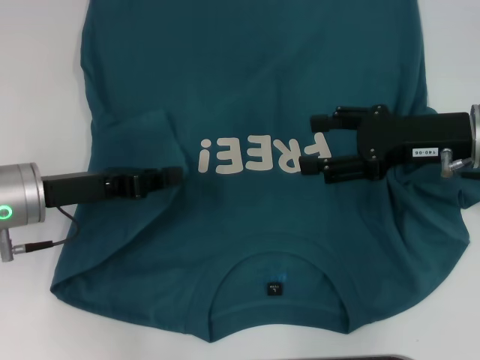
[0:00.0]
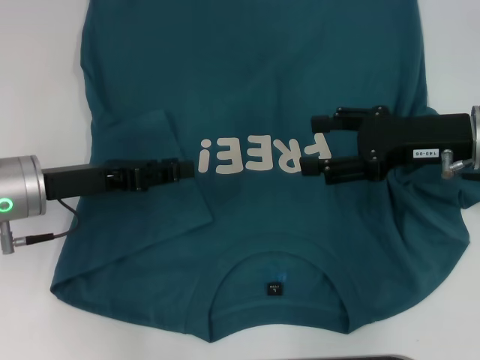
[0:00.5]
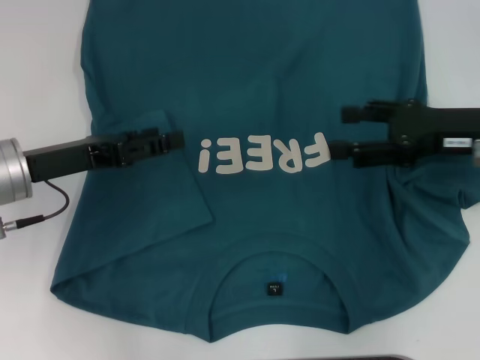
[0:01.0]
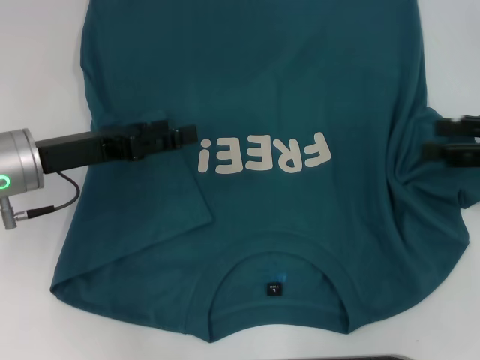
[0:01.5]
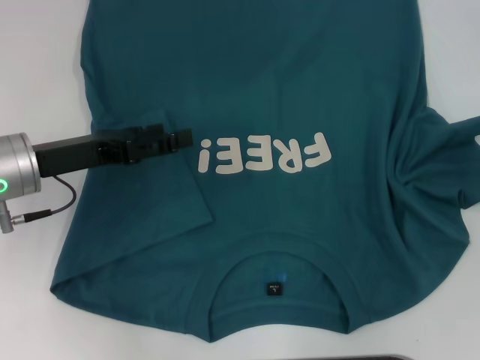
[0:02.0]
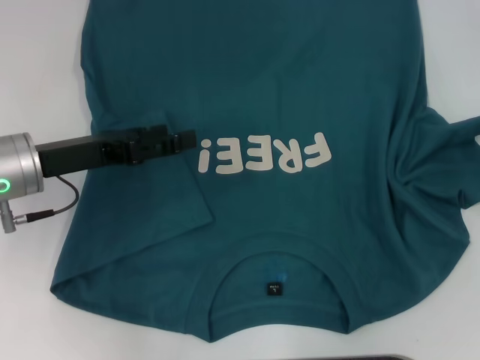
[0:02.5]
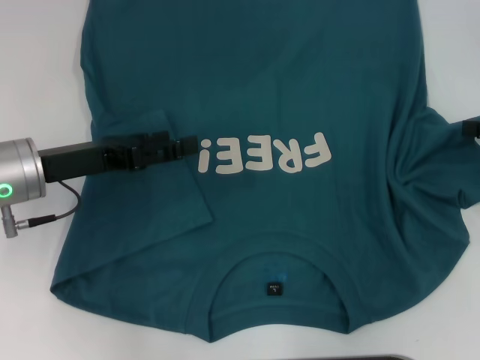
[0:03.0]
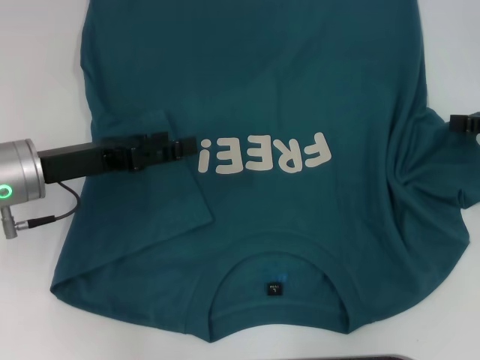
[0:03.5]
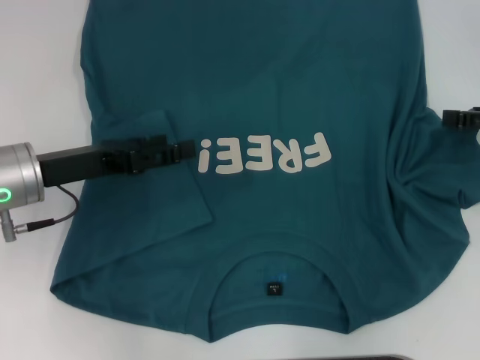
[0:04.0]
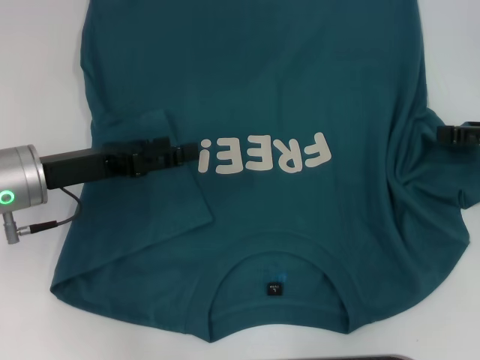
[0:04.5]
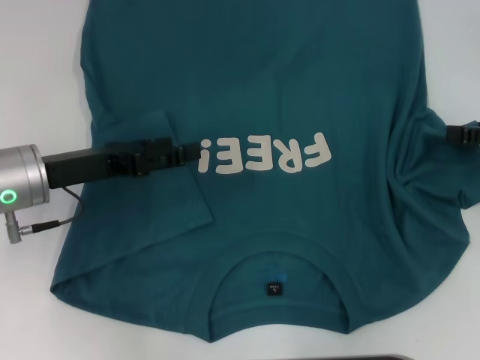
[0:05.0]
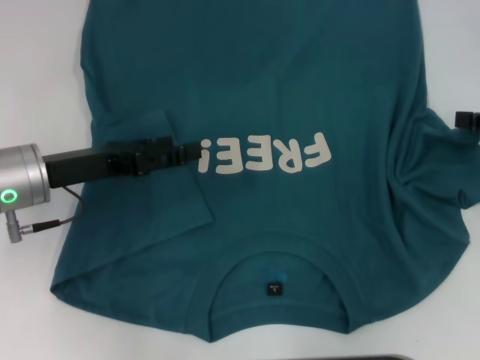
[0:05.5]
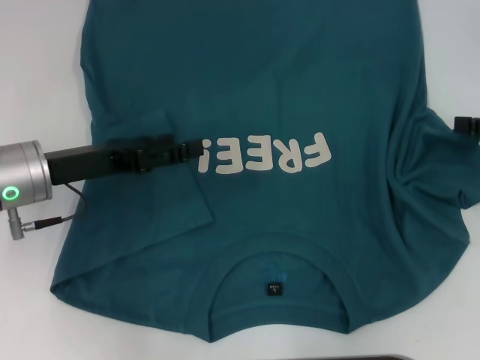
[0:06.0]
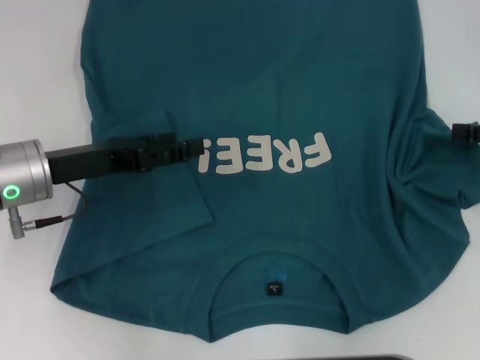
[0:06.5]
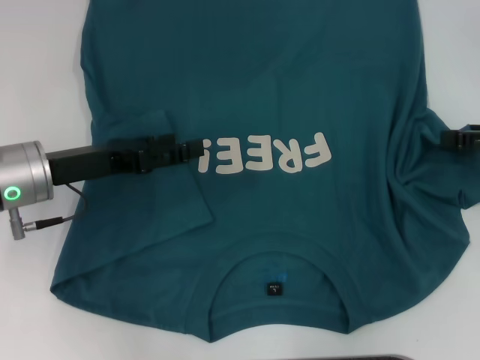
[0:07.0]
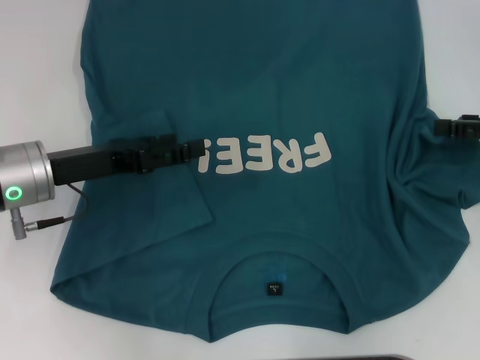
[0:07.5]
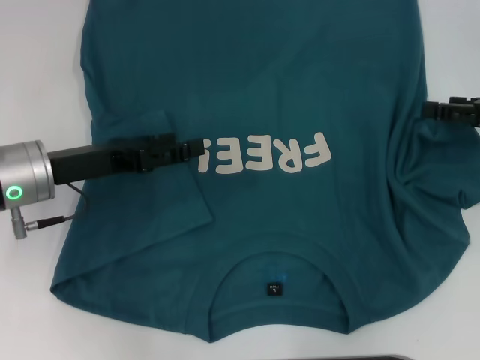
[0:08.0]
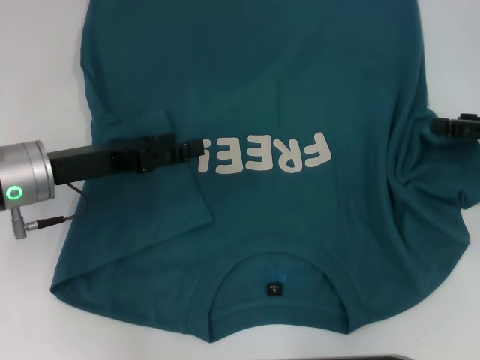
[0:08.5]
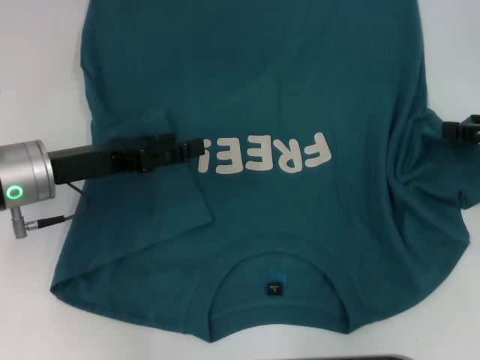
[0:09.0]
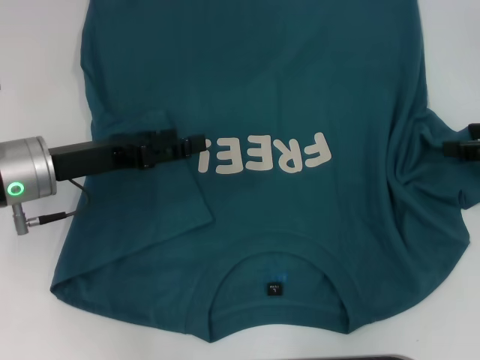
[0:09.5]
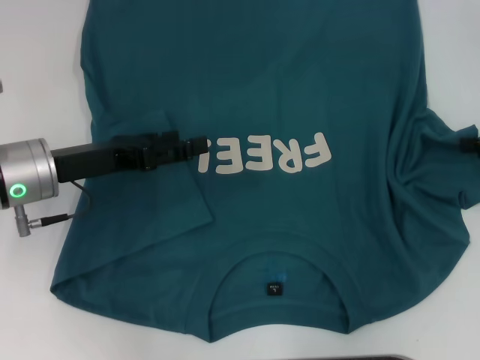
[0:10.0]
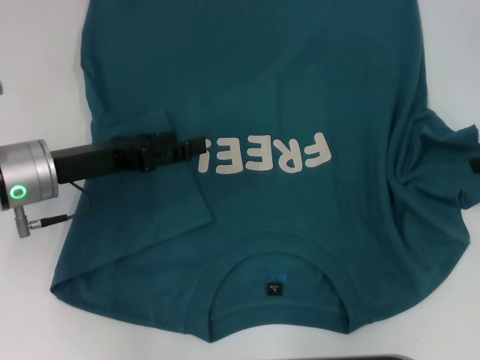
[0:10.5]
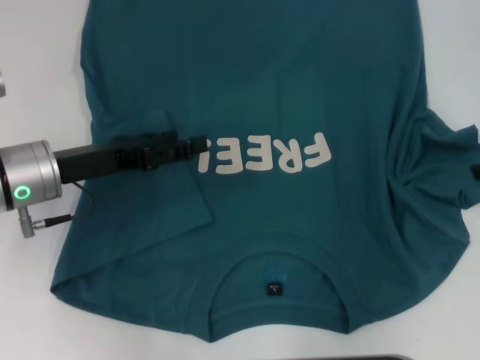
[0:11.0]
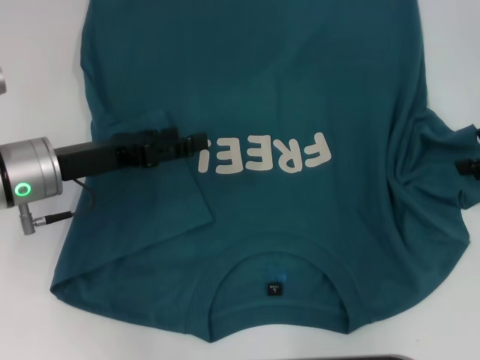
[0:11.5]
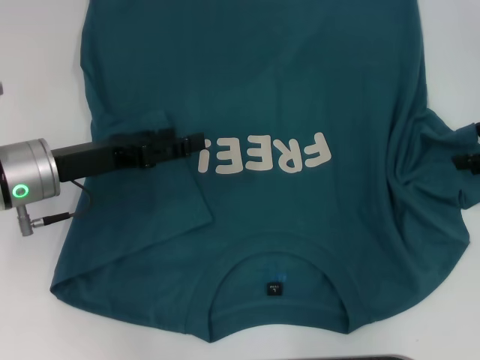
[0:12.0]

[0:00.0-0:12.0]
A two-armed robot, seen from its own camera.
0.0 to 2.0 s: The right gripper shifts about 15 cm to the right; the left gripper opens.
2.0 to 4.0 s: The right gripper ends up about 5 cm from where it was.
4.0 to 8.0 s: The grippers stay close to where they were, moving slightly.
10.0 to 12.0 s: The grippers stay close to where they were, moving slightly.

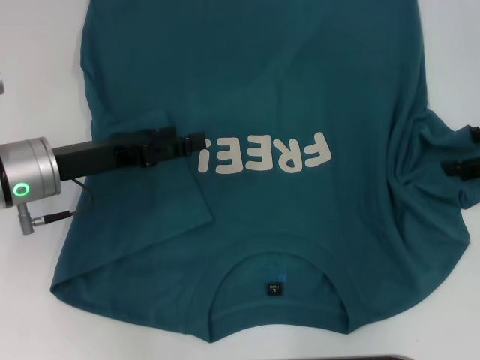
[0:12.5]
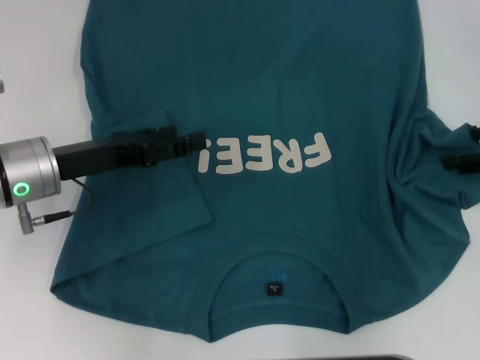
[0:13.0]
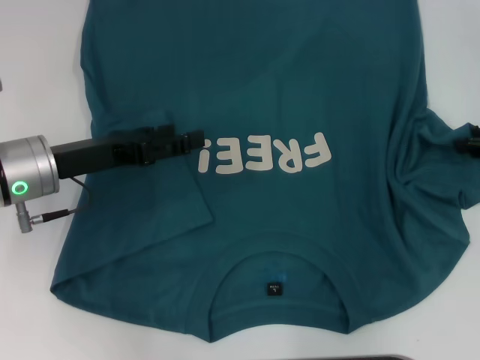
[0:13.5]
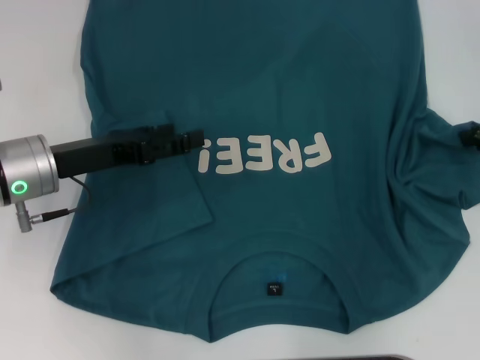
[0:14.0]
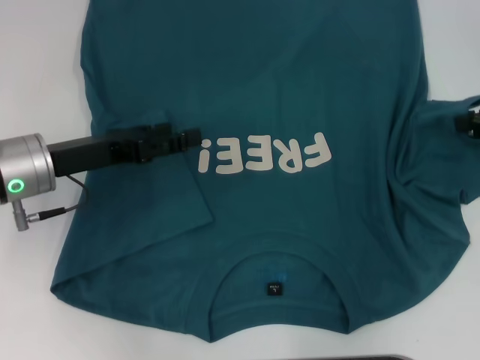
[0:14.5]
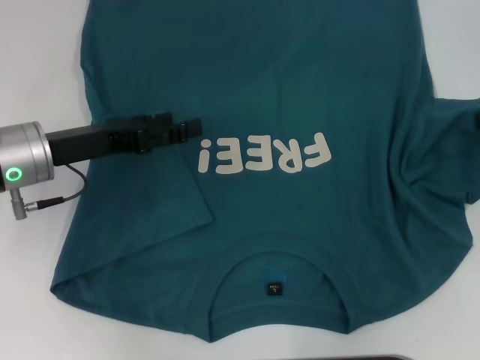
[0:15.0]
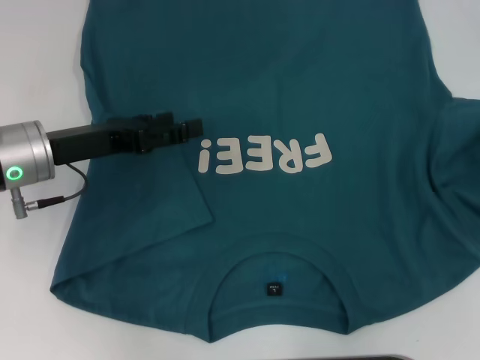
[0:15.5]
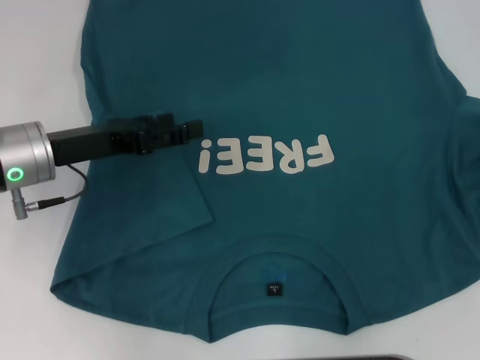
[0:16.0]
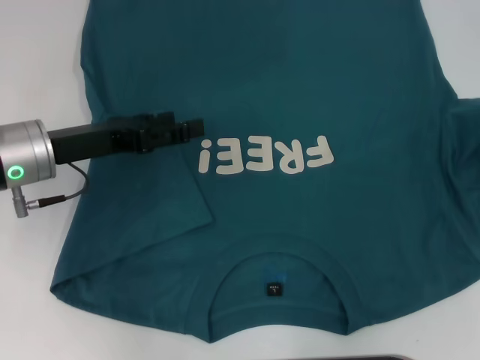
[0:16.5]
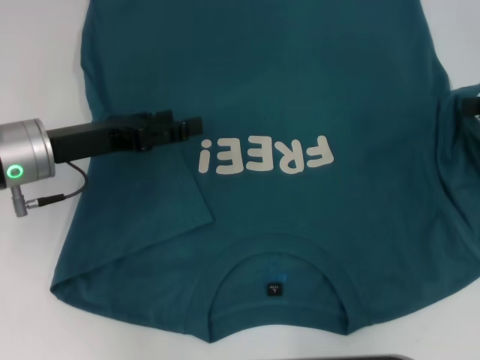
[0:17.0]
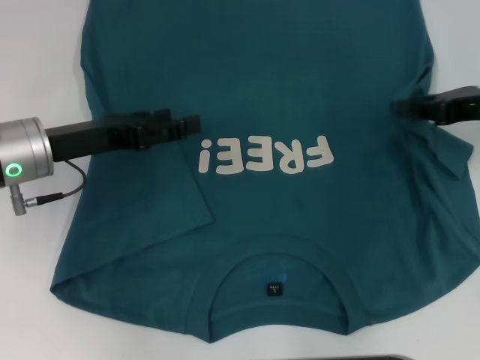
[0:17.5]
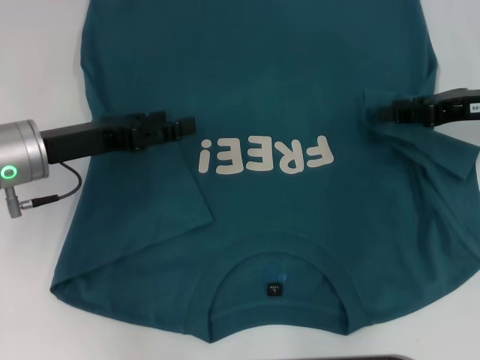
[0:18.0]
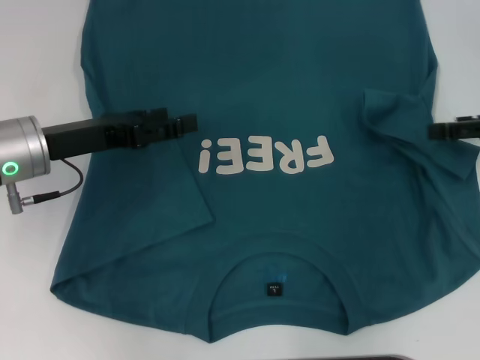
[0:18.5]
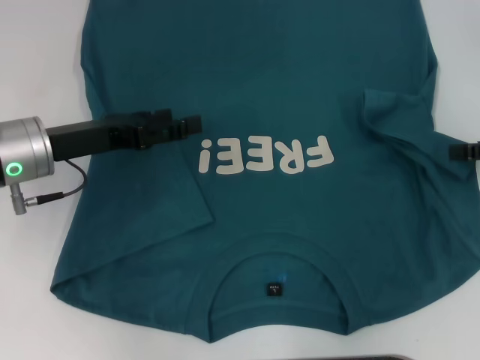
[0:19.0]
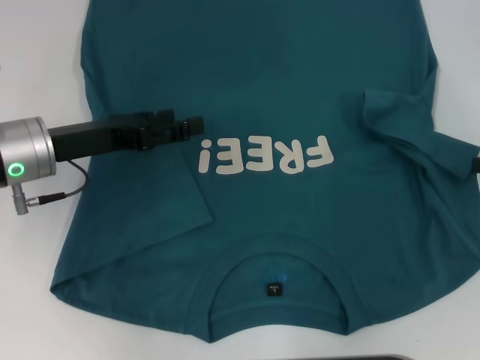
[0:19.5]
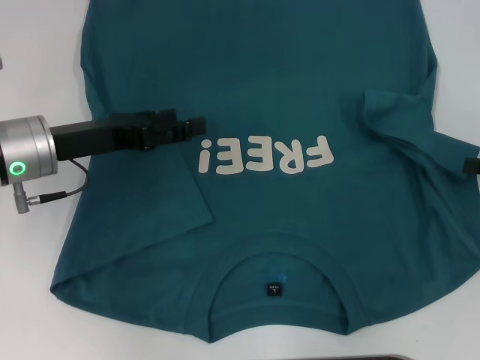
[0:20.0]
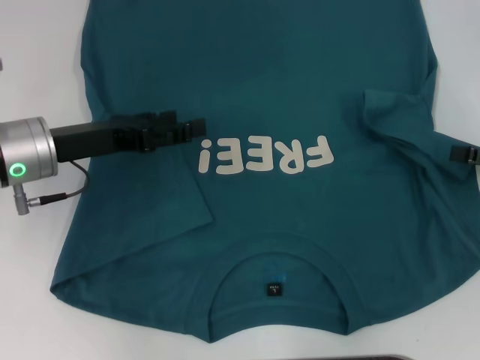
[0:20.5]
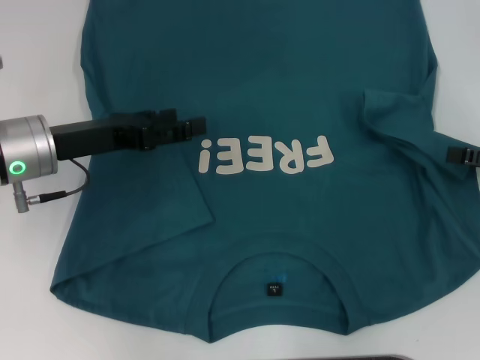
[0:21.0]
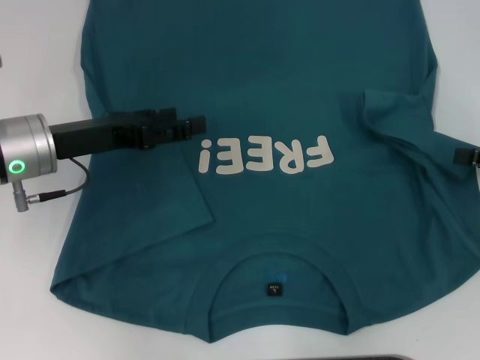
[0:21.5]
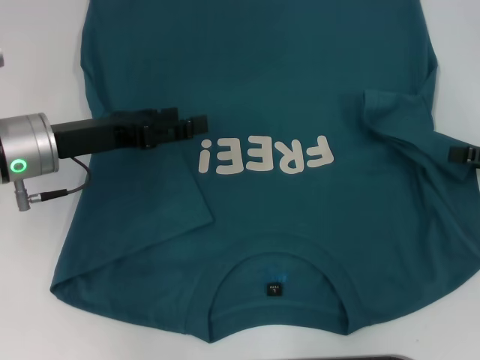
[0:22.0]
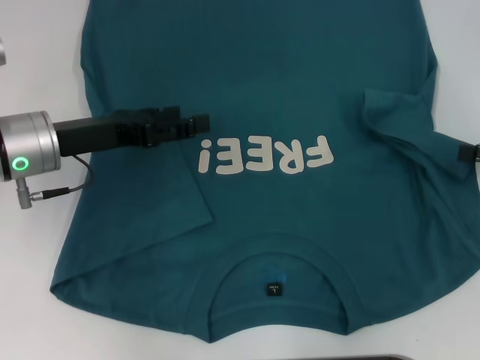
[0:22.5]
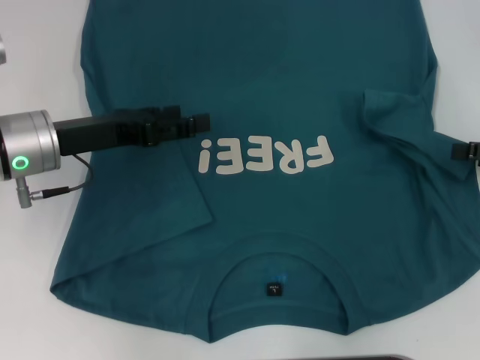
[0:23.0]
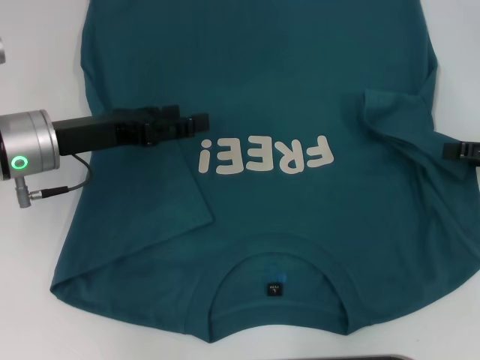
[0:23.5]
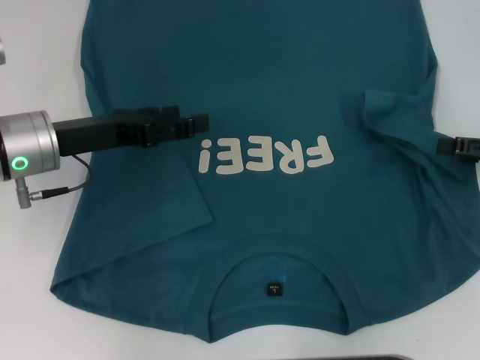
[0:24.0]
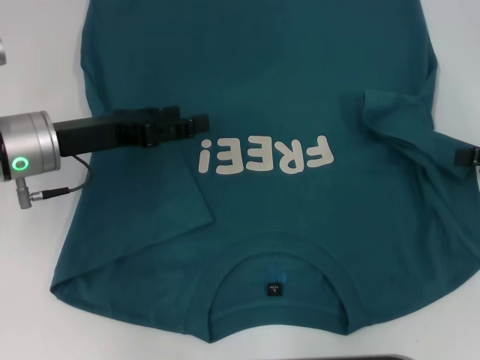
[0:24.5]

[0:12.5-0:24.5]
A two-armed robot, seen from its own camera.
12.5 to 14.5 s: The right gripper closes its fingers.
14.5 to 16.5 s: The right gripper ends up some 5 cm from where it was.
16.5 to 18.5 s: The right gripper opens.
18.5 to 20.5 s: The right gripper heads backward, covering roughly 5 cm.
20.5 to 22.5 s: The grippers move only a little.

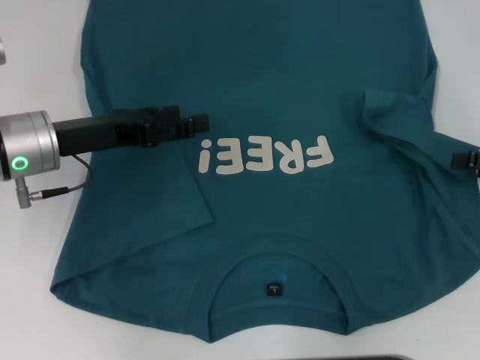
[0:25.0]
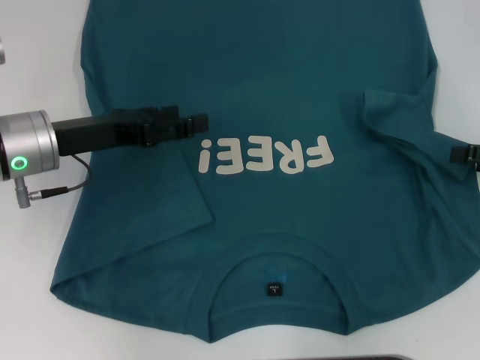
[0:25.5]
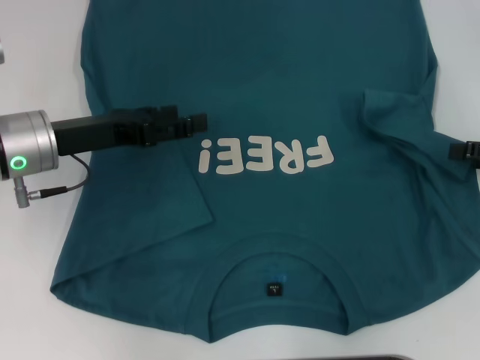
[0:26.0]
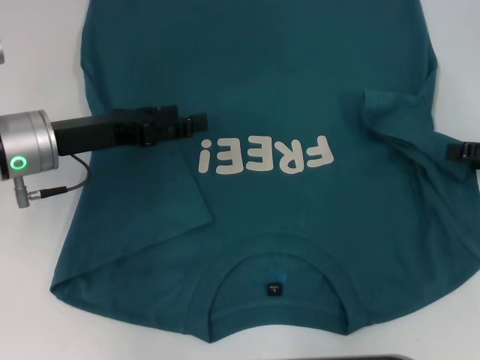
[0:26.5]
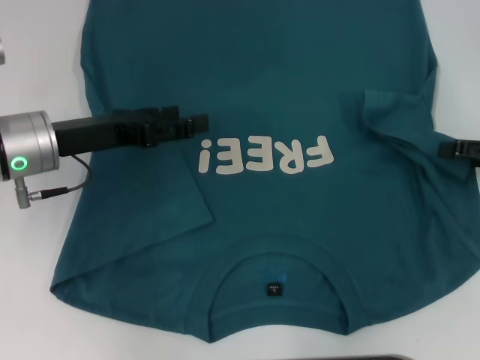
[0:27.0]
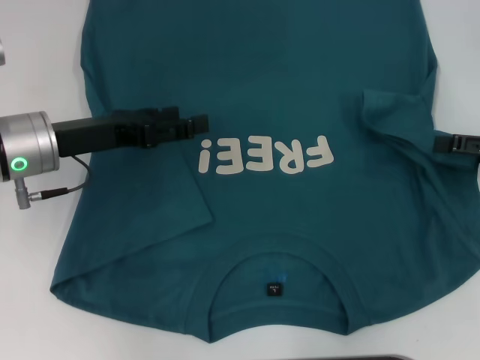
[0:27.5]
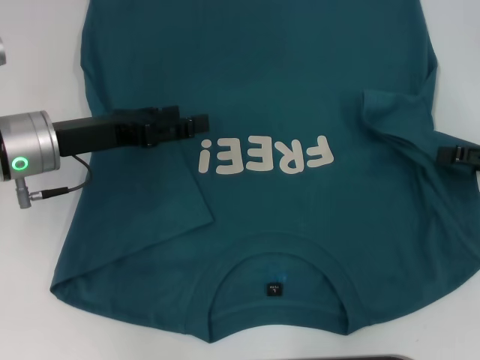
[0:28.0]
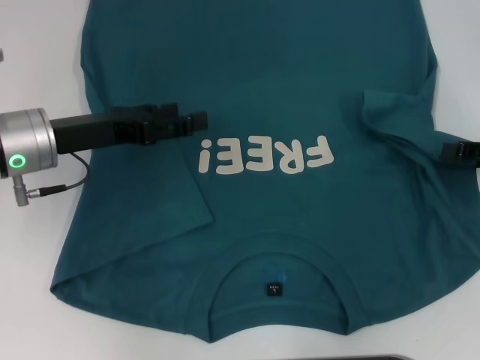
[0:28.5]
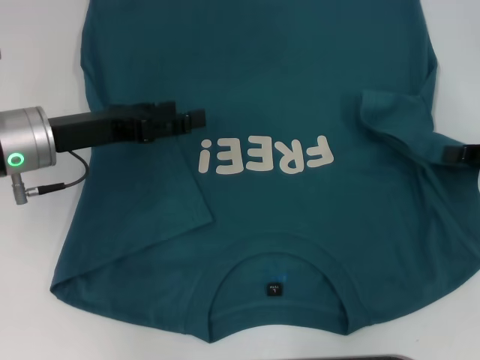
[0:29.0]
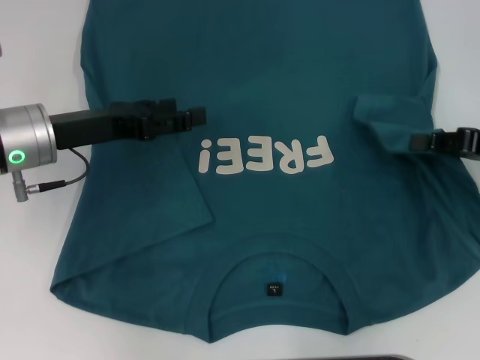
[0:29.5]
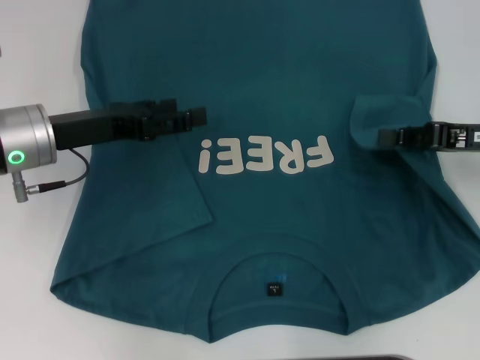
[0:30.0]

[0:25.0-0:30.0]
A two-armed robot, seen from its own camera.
27.5 to 30.0 s: The right gripper travels to the left by approximately 5 cm, and closes up.
